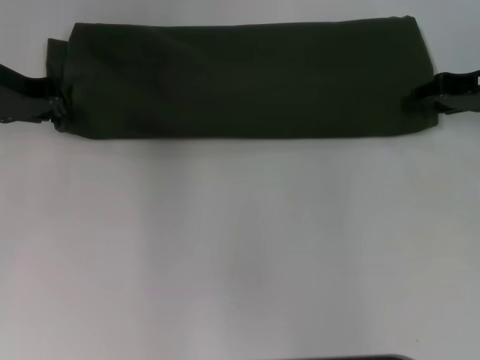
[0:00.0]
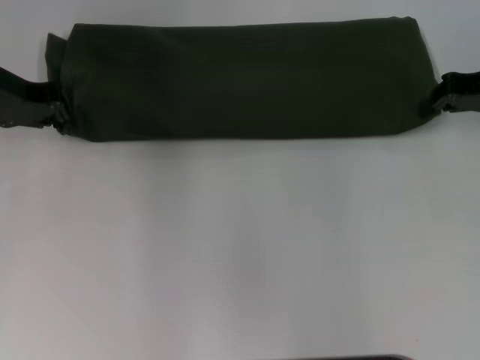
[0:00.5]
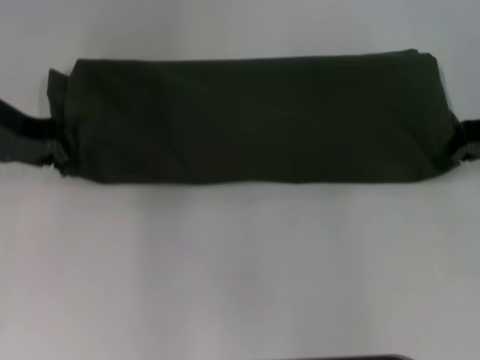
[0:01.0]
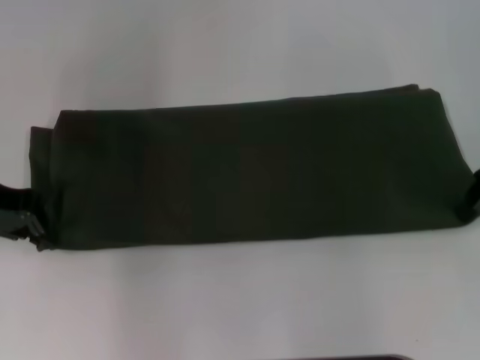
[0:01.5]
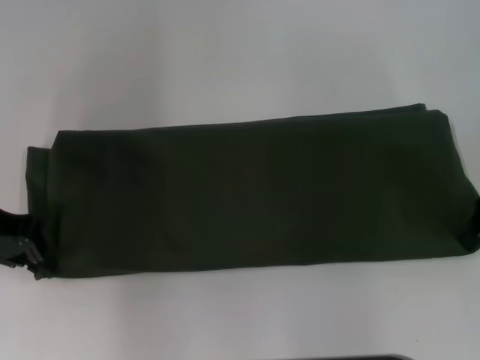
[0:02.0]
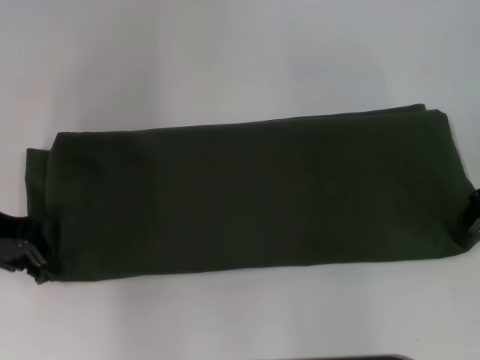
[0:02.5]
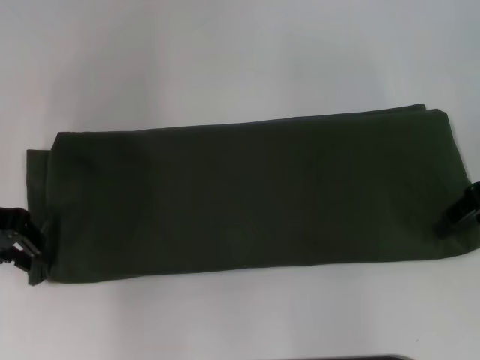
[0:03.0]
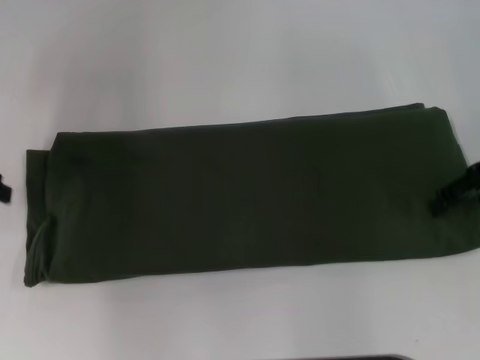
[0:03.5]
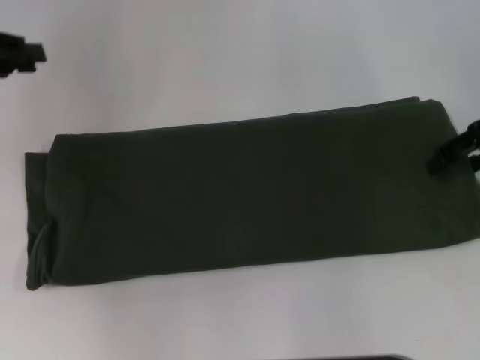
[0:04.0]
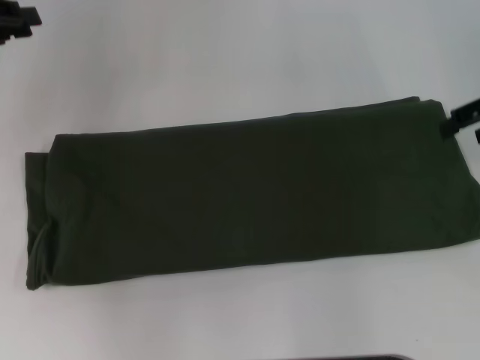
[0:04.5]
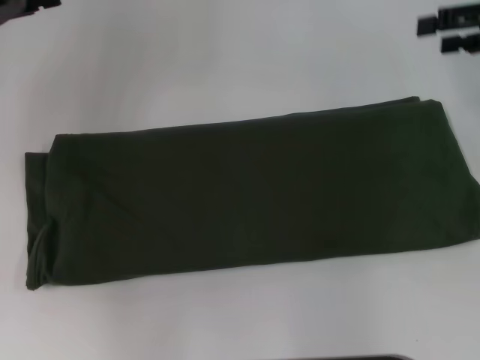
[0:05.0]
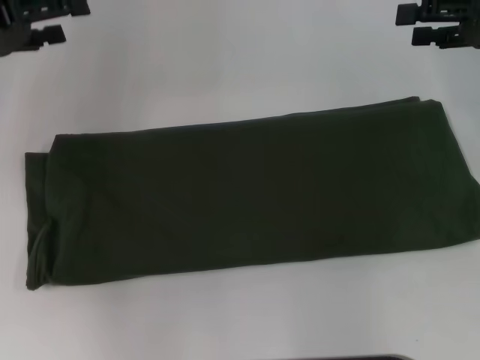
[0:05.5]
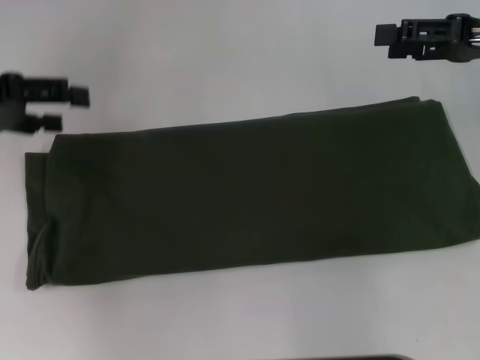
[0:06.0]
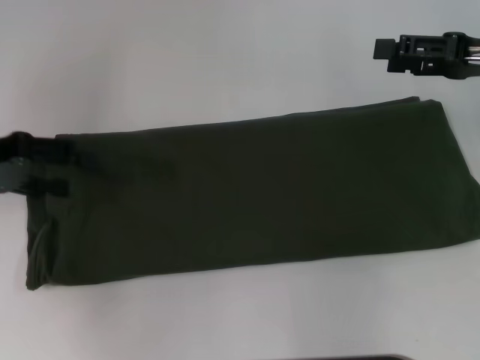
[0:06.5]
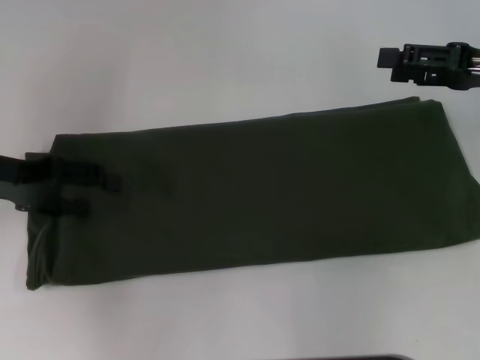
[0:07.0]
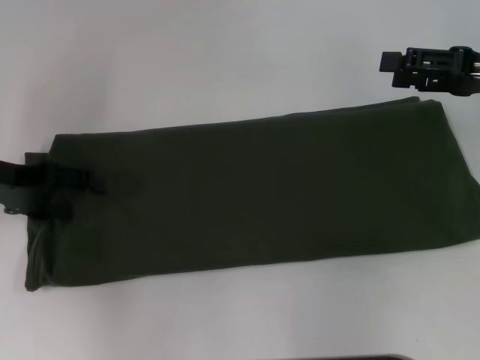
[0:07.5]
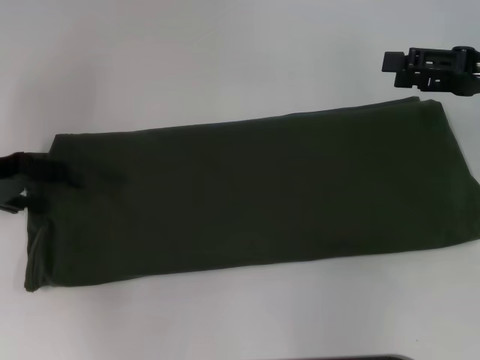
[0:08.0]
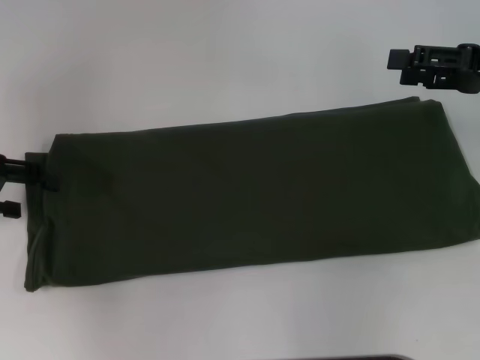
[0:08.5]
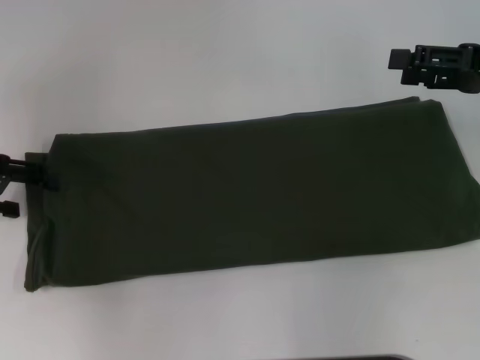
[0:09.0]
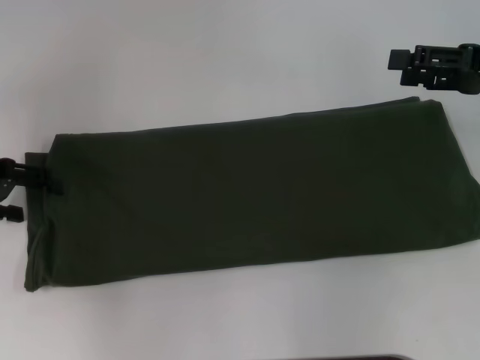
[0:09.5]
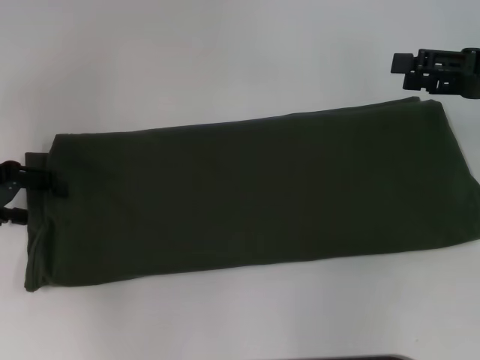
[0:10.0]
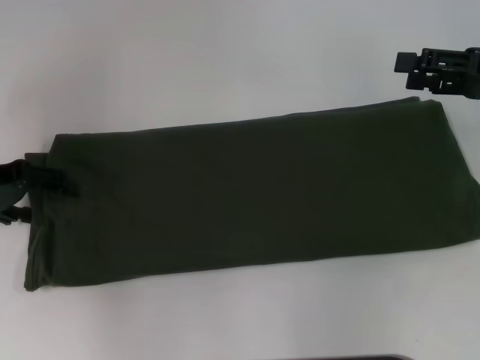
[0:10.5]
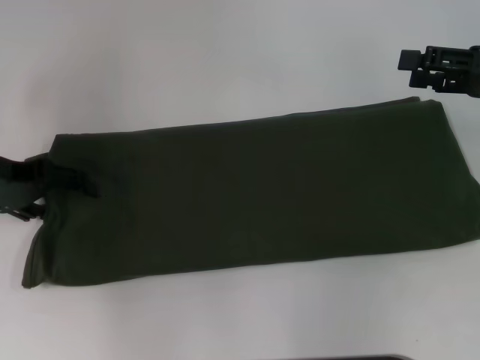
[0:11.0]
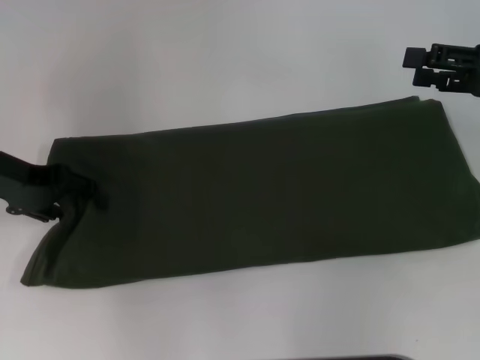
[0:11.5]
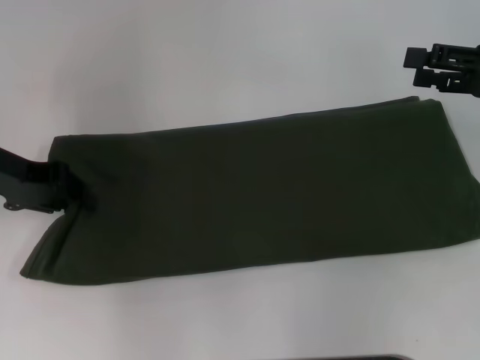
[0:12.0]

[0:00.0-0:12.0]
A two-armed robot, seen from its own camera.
0:00.0 to 0:02.0: The grippers both shift backward by roughly 10 cm. The right gripper closes its fingers.
0:02.0 to 0:04.0: The left gripper moves to the left, about 5 cm. The right gripper opens its fingers.
0:04.0 to 0:06.0: The left gripper opens up.
0:06.0 to 0:08.0: The left gripper moves downward, some 5 cm.
0:08.0 to 0:10.0: The grippers move only a little.
0:10.0 to 0:12.0: The left gripper ends up about 5 cm from where it was, and closes its fingers.

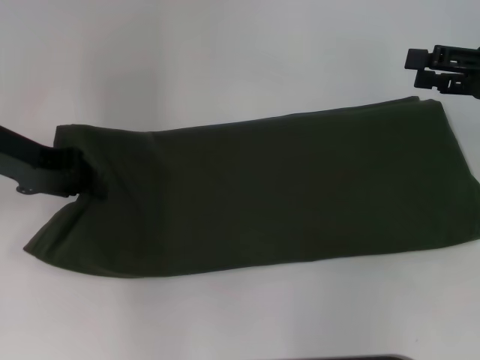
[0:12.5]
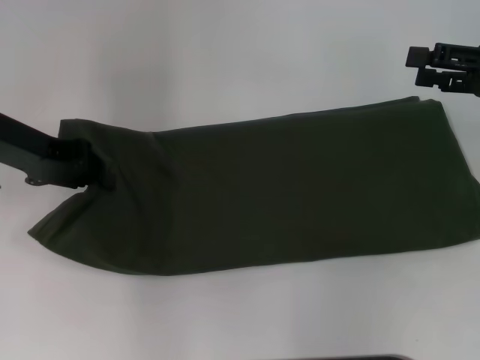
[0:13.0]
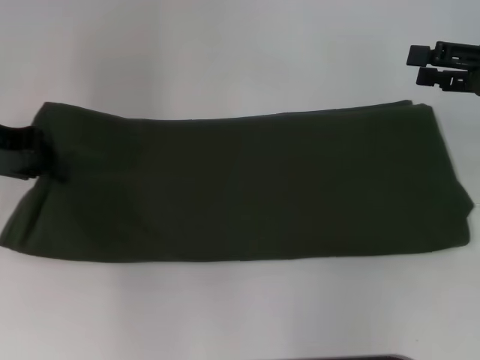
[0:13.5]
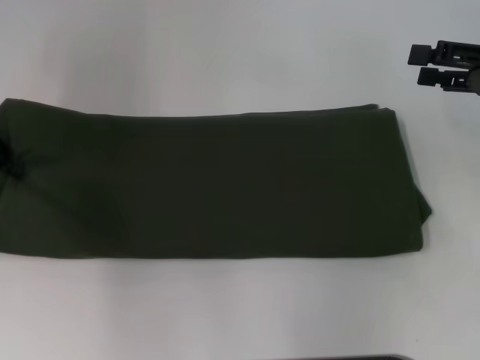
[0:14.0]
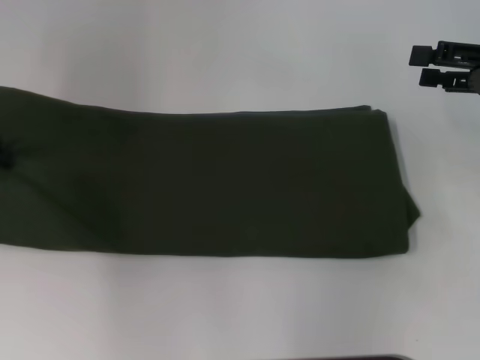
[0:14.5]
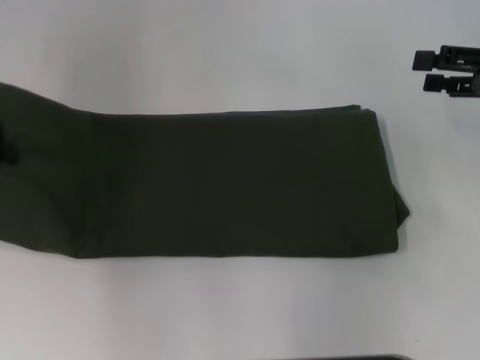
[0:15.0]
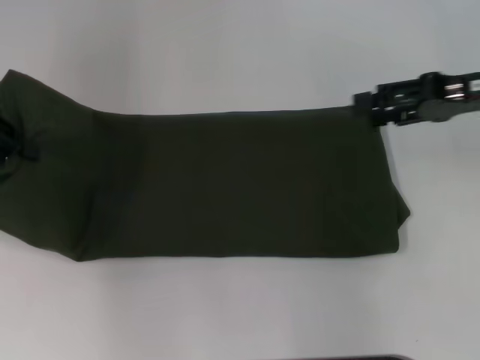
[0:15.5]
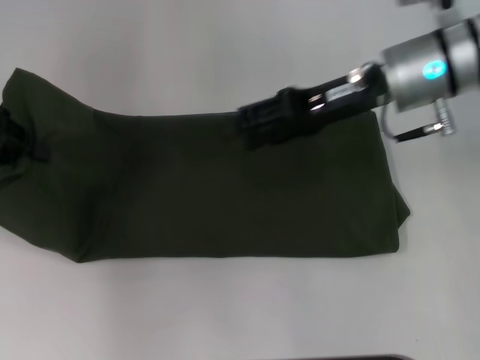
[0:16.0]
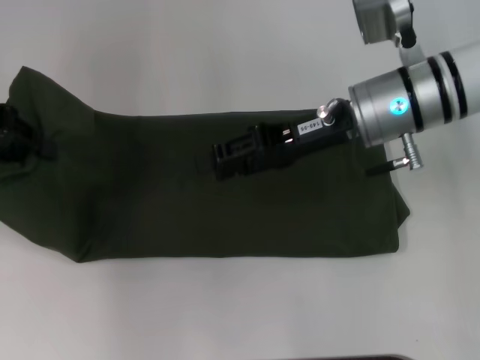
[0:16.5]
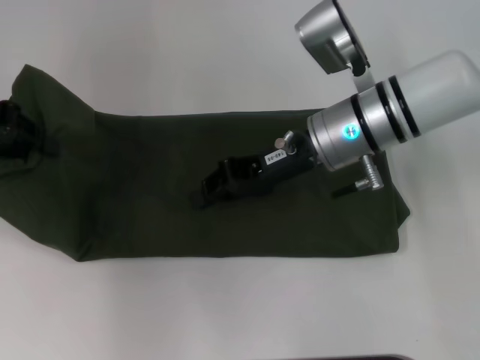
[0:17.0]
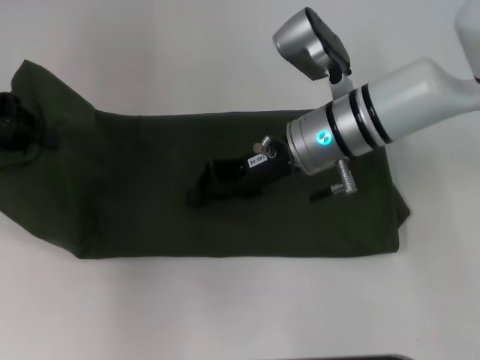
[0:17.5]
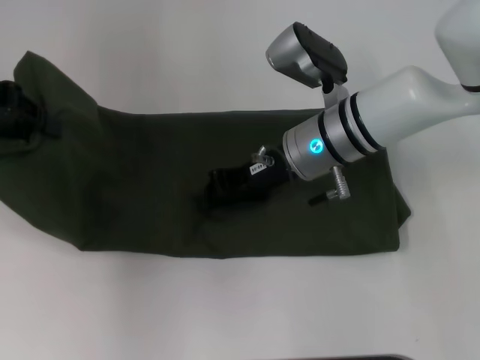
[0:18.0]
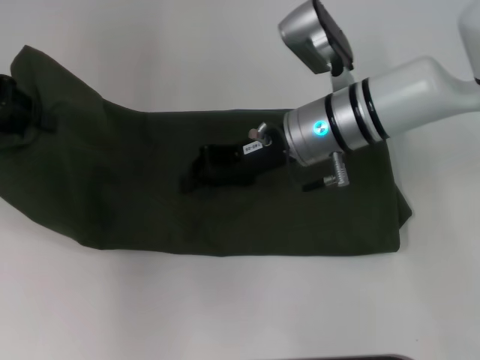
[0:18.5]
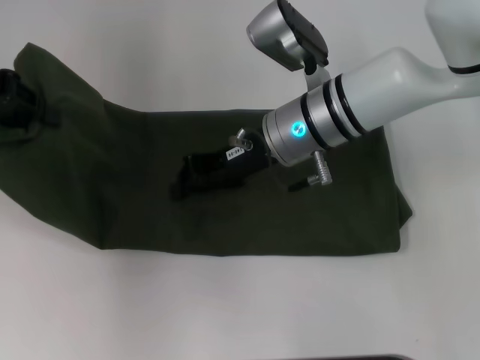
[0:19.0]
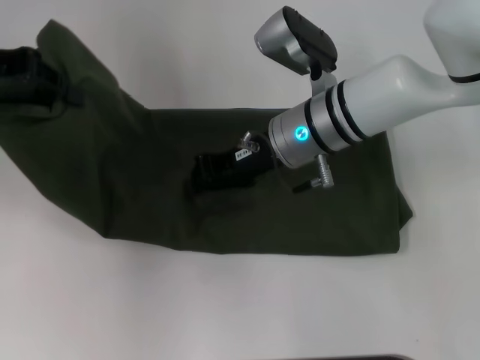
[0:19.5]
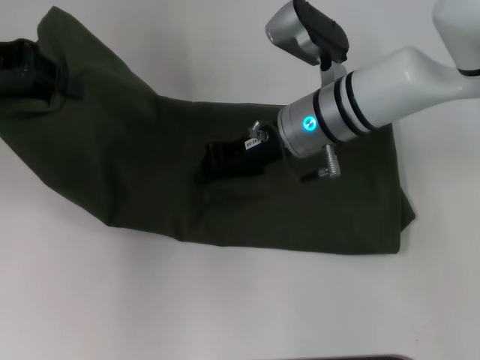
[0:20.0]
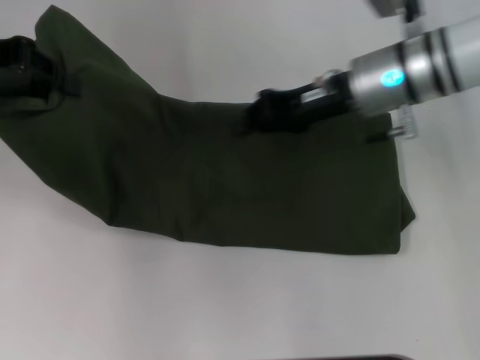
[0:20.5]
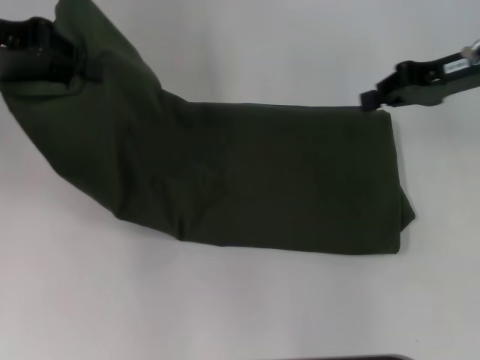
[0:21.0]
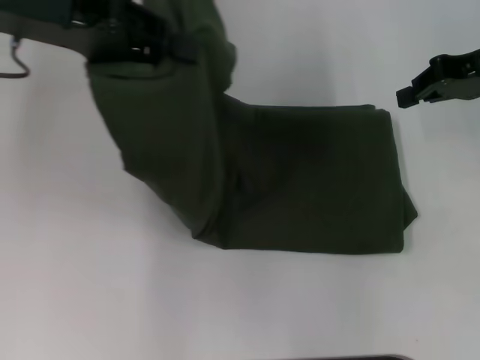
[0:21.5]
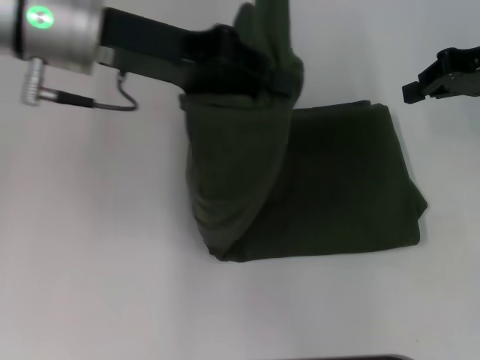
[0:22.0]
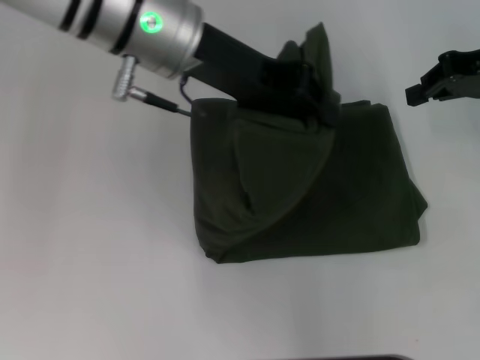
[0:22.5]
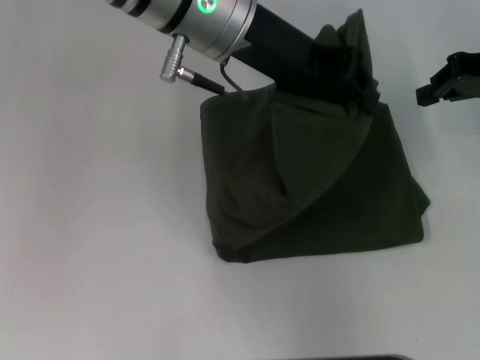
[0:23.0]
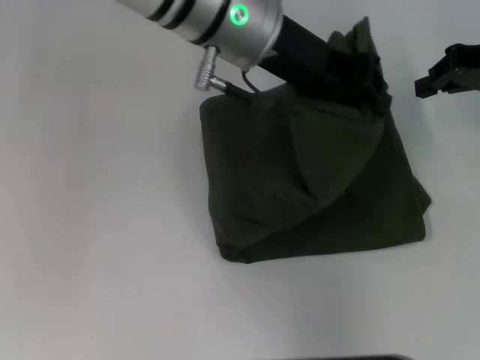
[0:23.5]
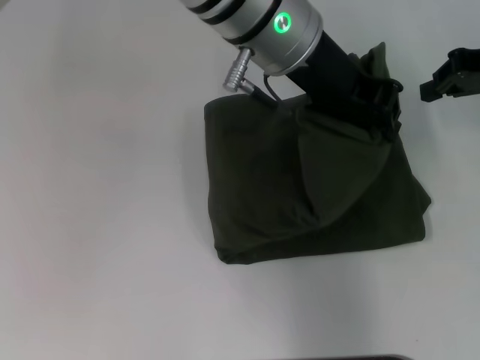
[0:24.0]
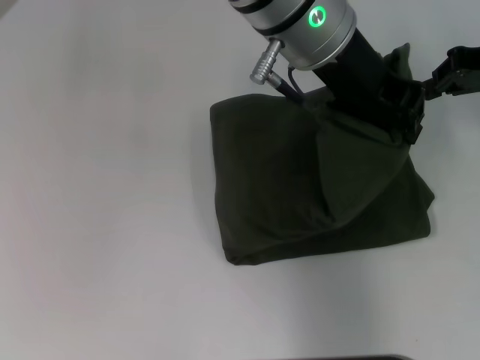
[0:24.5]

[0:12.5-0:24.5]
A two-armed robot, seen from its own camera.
0:12.5 to 0:14.5: The left gripper shifts roughly 5 cm to the left.
0:14.5 to 0:16.5: The right gripper heads to the left, covering approximately 20 cm.
0:16.5 to 0:18.5: The right gripper moves to the left, about 5 cm, and closes up.
0:18.5 to 0:20.5: The right gripper travels to the right by roughly 5 cm.
0:20.5 to 0:22.5: Both grippers move to the right, roughly 20 cm.
0:22.5 to 0:24.5: The left gripper goes some 10 cm to the right.

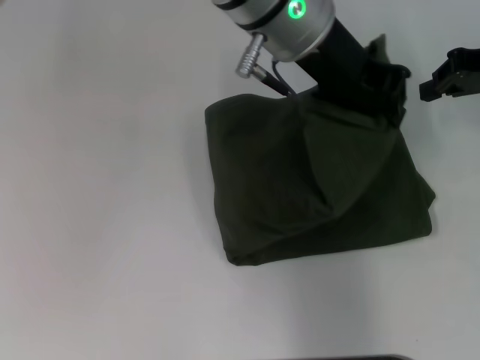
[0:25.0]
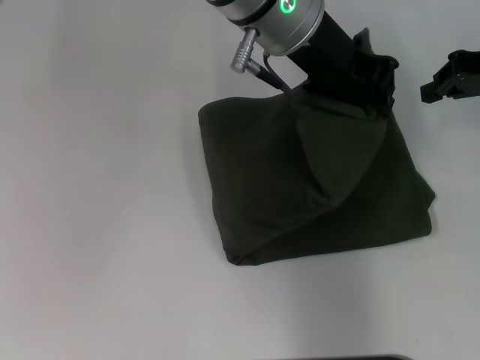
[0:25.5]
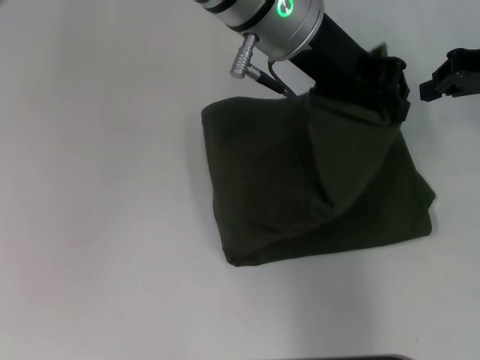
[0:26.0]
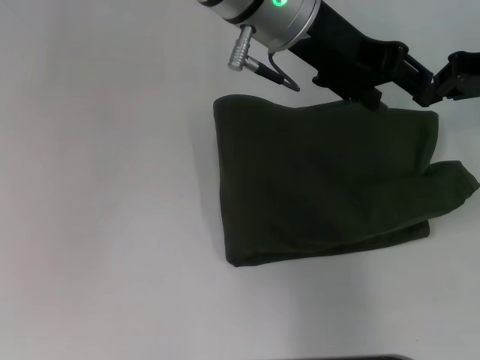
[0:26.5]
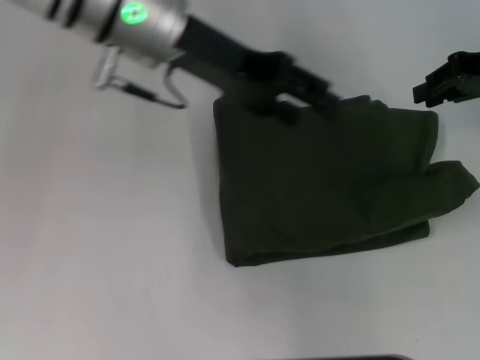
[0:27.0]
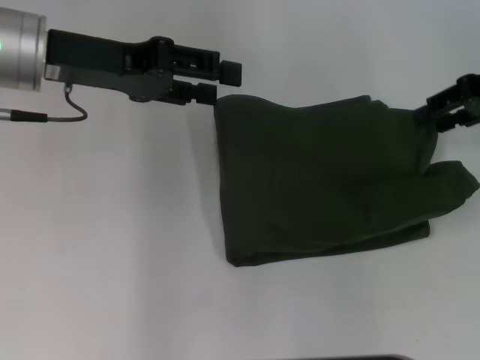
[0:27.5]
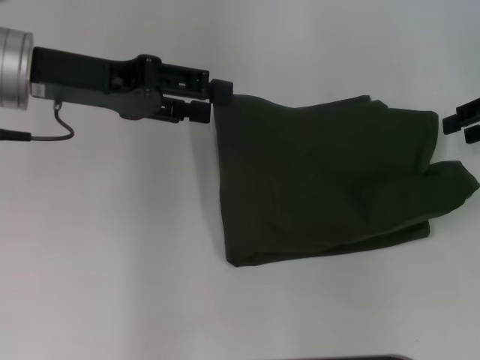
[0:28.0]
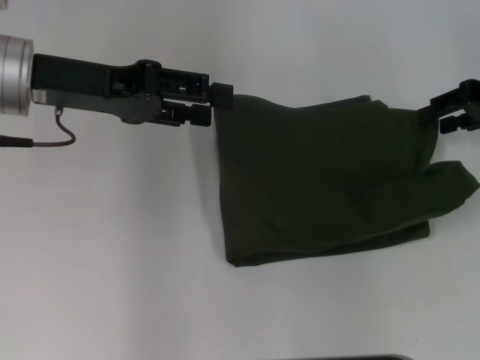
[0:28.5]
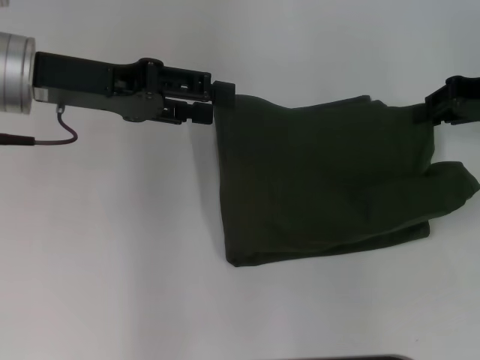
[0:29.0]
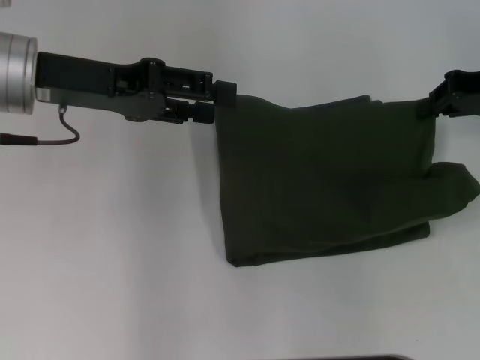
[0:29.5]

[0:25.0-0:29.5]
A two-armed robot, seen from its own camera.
0:25.0 to 0:27.0: The left gripper heads to the left, covering about 10 cm, and opens its fingers.
0:27.0 to 0:29.5: The right gripper opens, then closes again. The left gripper is displaced to the left by approximately 10 cm.
